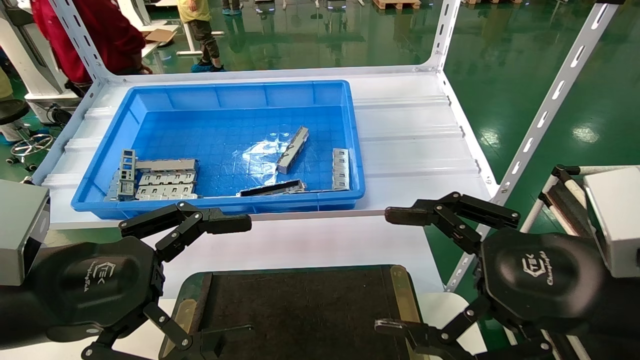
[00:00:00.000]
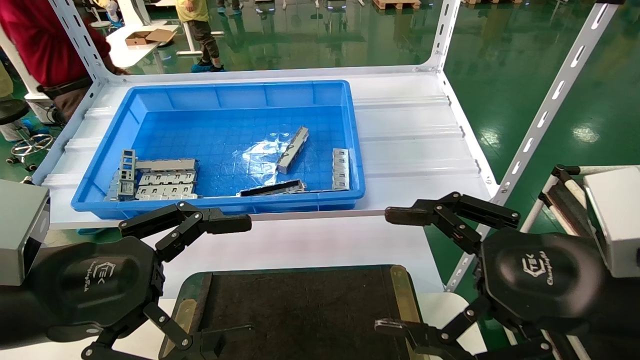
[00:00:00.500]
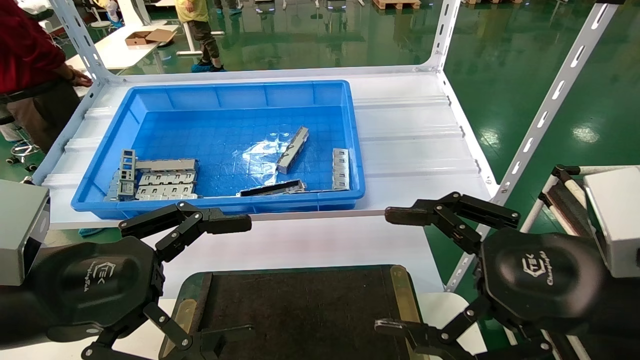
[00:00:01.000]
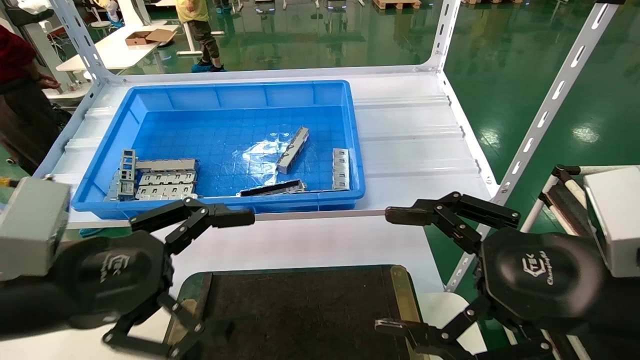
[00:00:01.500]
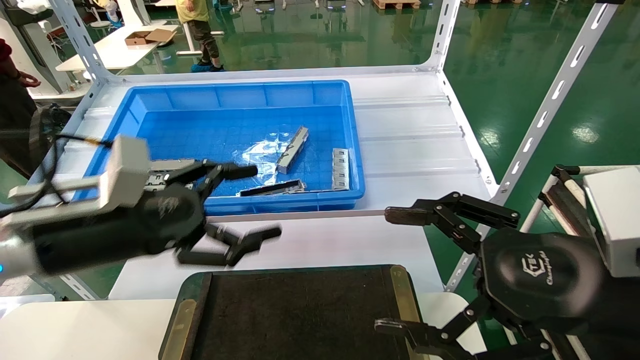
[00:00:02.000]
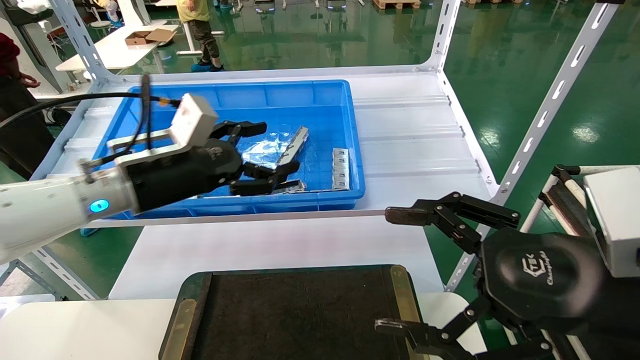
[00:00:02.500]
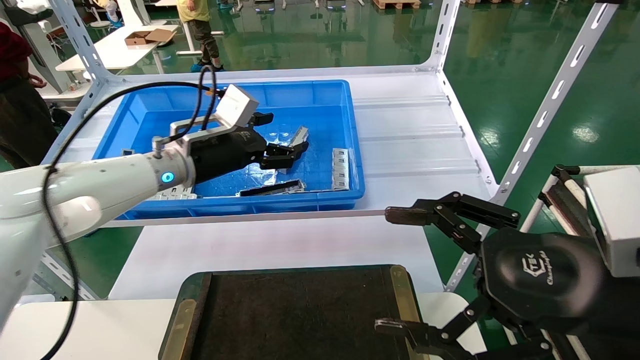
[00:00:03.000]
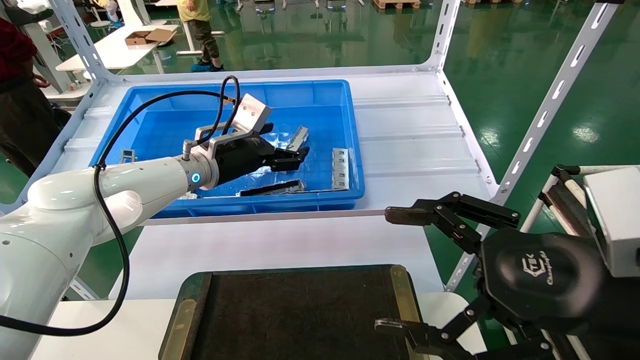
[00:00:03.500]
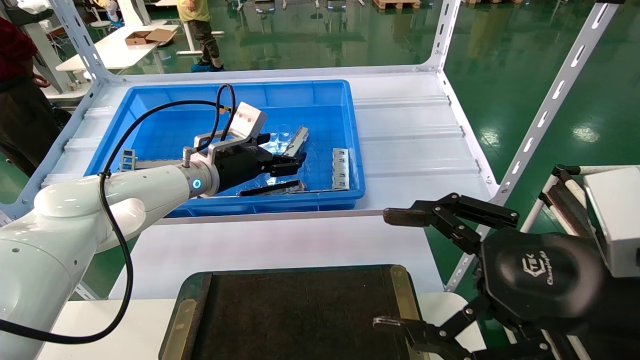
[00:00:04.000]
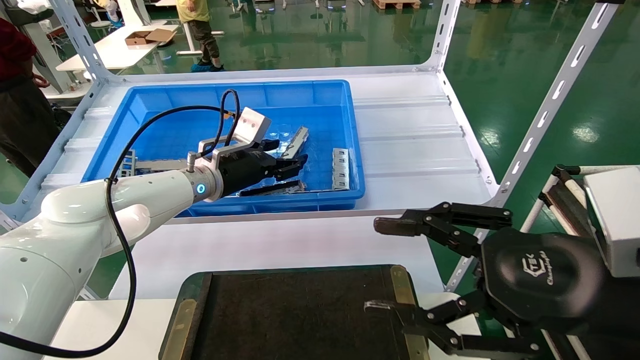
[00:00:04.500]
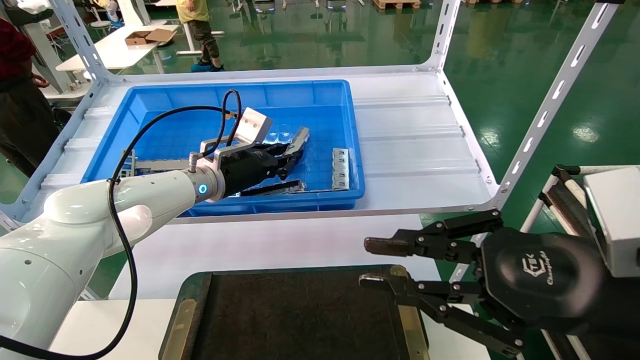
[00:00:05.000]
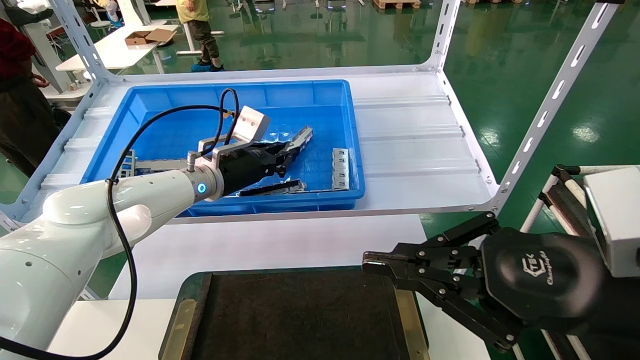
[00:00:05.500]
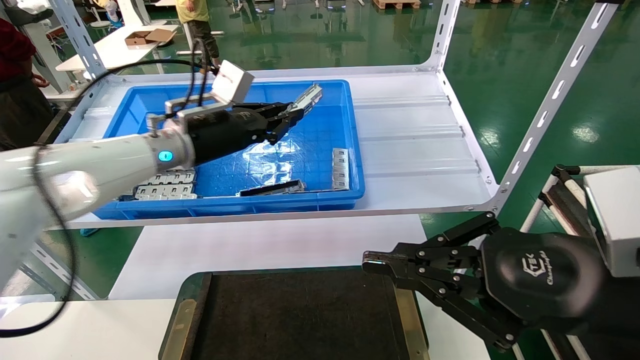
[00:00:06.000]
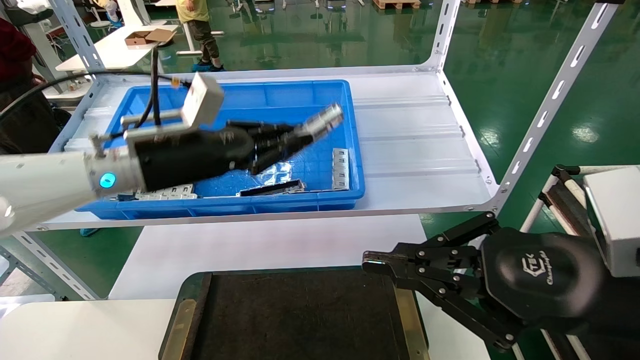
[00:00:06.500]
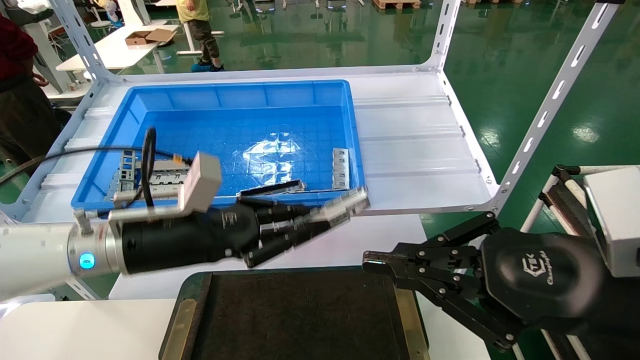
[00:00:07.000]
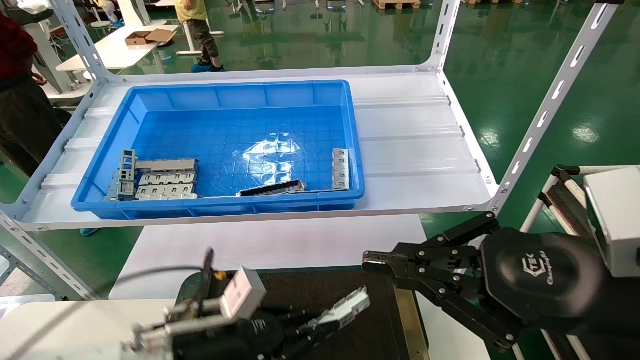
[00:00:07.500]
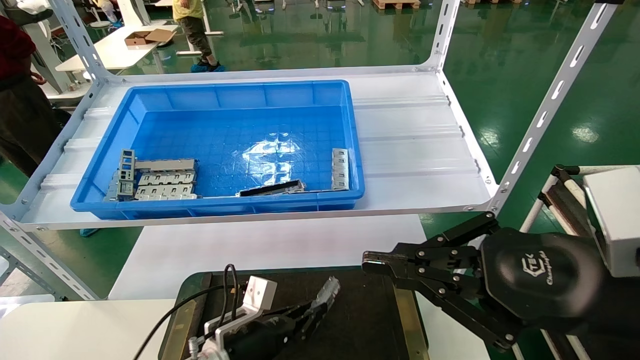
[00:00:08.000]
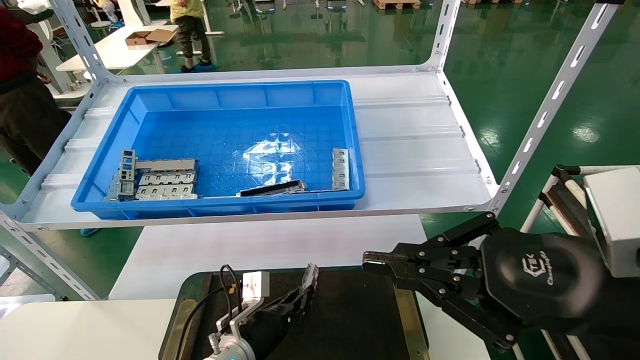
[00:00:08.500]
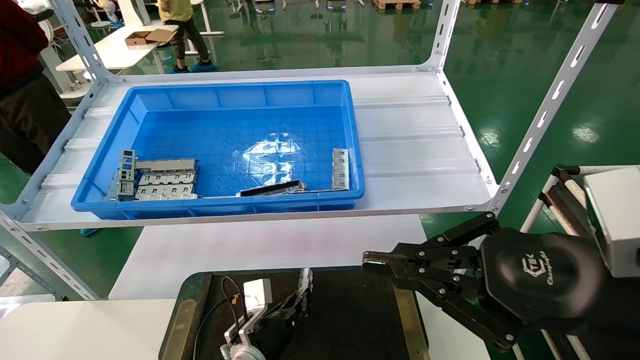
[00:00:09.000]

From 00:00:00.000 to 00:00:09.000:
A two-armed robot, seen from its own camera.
Task of the whole recording: Grasp the part with one hand and place it on the black container.
Step, from 00:00:02.000 to 00:00:05.500: Pick up the front USB bracket from the feeding area.
From 00:00:00.000 to 00:00:02.000: The left gripper goes about 10 cm forward.
From 00:00:02.000 to 00:00:04.500: The left gripper travels forward by roughly 20 cm.
From 00:00:04.500 to 00:00:07.000: The left gripper shifts approximately 15 cm backward, and closes up. The right gripper closes its fingers.
From 00:00:07.000 to 00:00:09.000: The left gripper moves downward, approximately 25 cm.

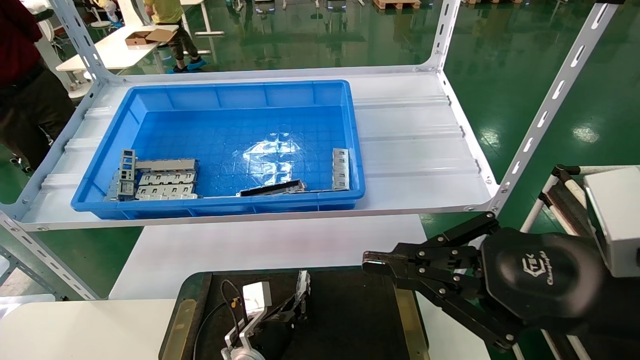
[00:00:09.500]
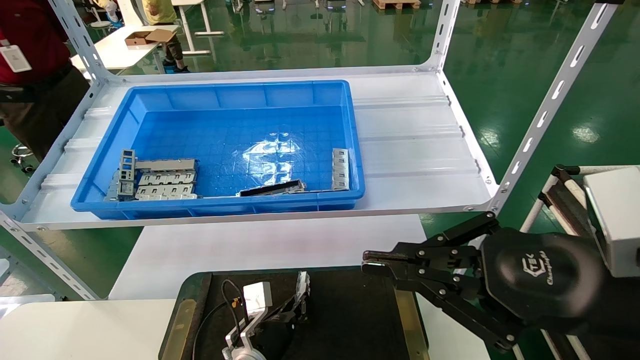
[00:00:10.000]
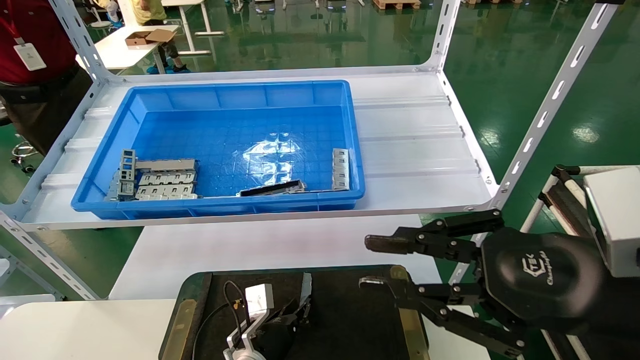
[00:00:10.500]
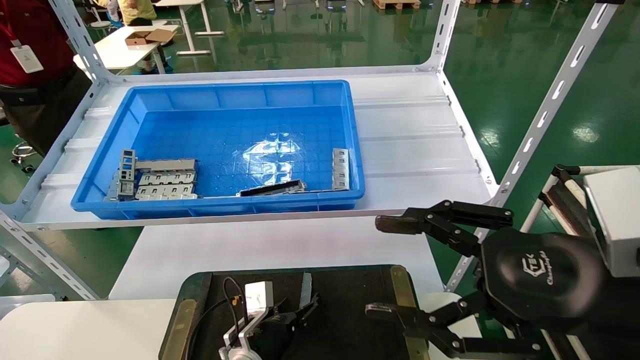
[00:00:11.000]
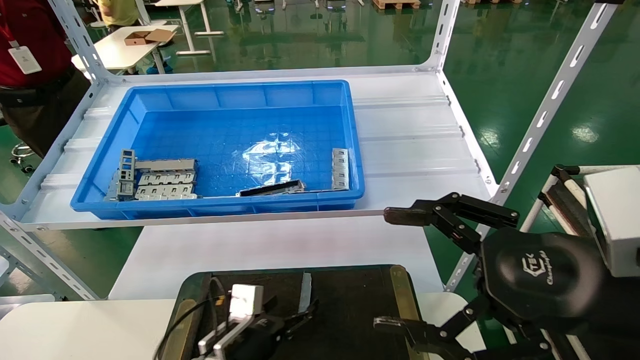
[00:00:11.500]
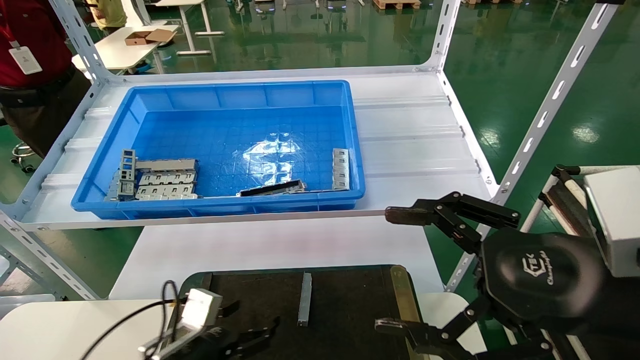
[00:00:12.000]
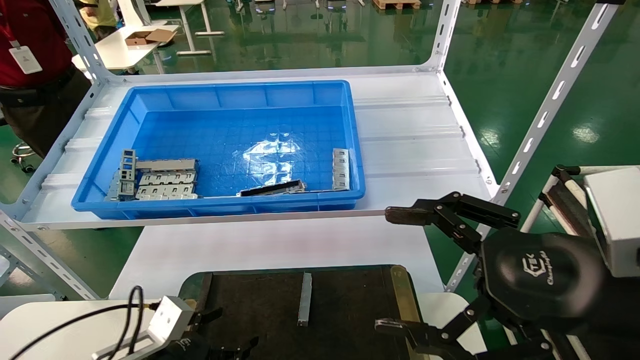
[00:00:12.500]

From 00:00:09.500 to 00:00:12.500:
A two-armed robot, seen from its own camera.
Task of the whole recording: Grasp the part with one hand and place it on the black container.
From 00:00:09.500 to 00:00:11.000: The left gripper opens up. Meanwhile the right gripper opens up.
From 00:00:11.000 to 00:00:12.500: The left gripper travels to the left and backward by some 20 cm, and opens its fingers, while the right gripper opens up.
